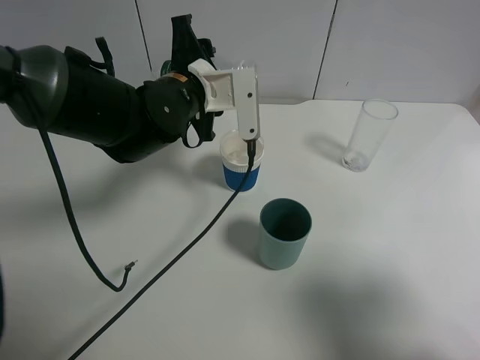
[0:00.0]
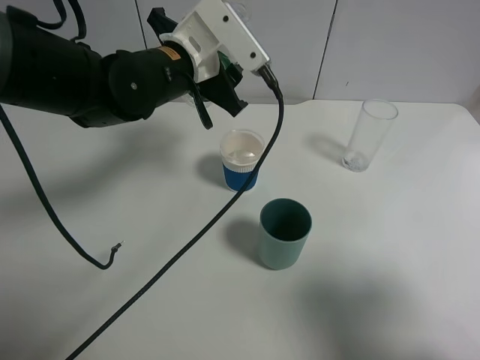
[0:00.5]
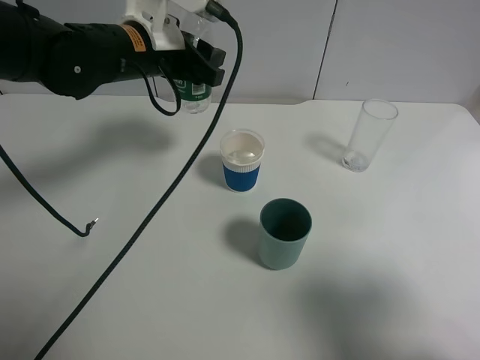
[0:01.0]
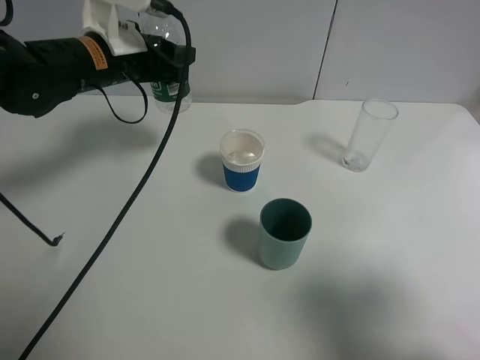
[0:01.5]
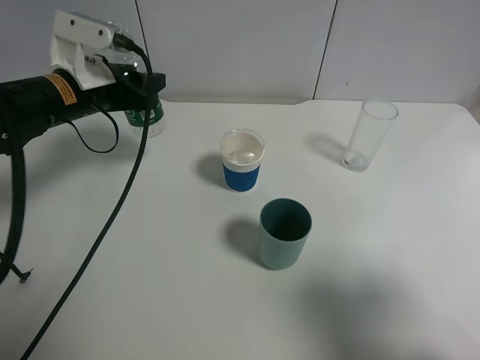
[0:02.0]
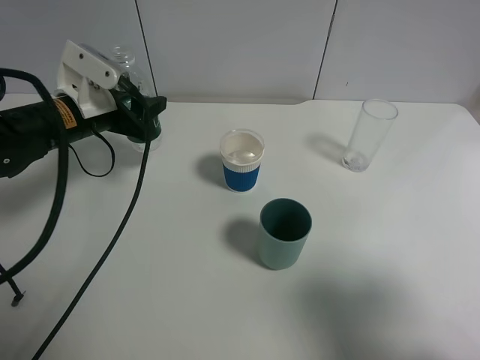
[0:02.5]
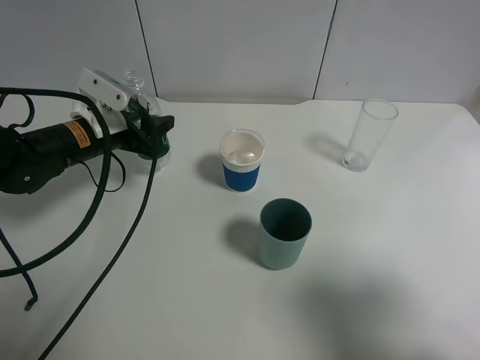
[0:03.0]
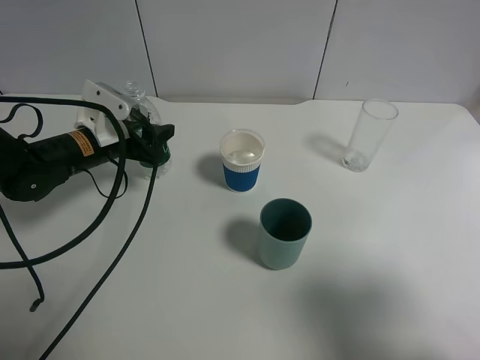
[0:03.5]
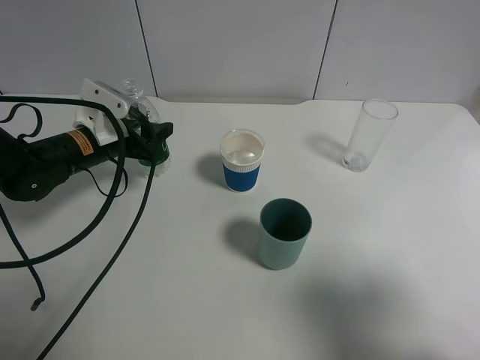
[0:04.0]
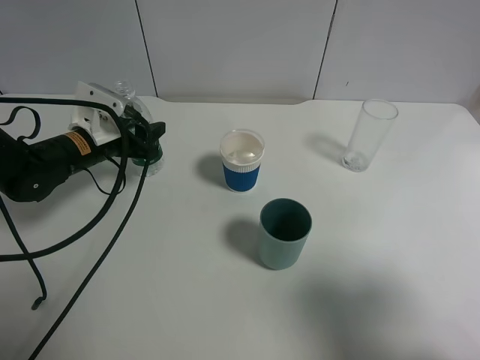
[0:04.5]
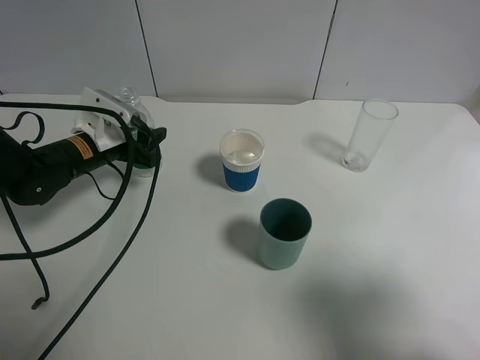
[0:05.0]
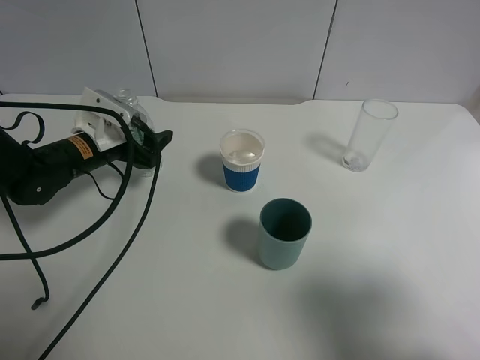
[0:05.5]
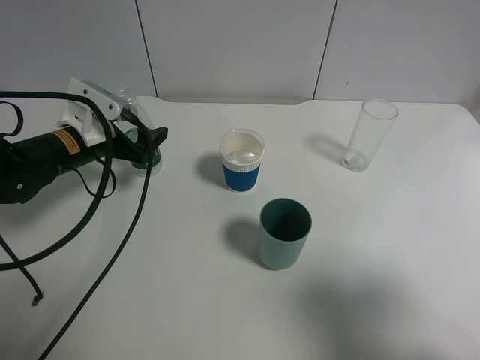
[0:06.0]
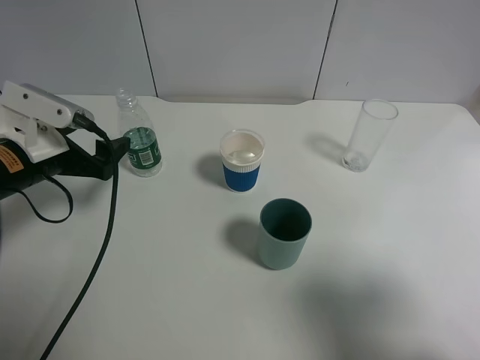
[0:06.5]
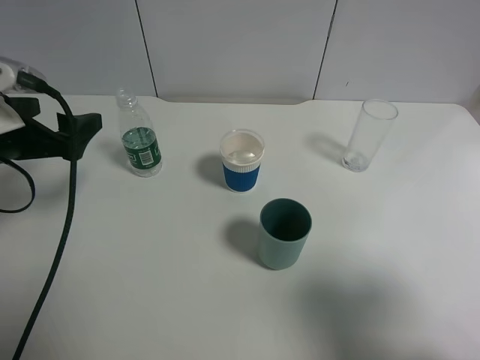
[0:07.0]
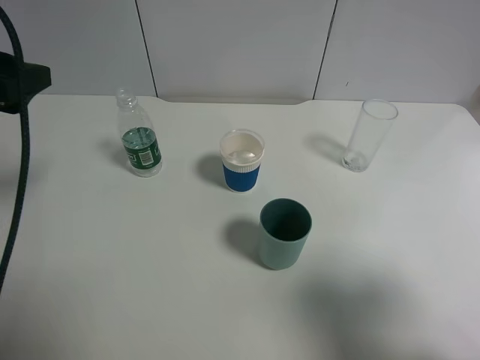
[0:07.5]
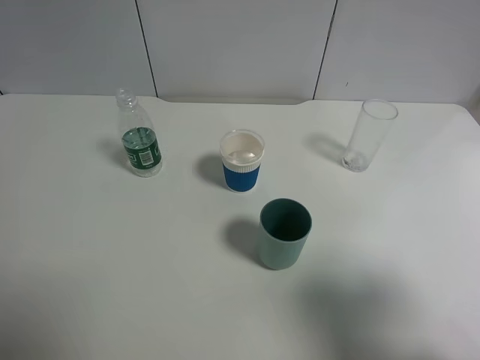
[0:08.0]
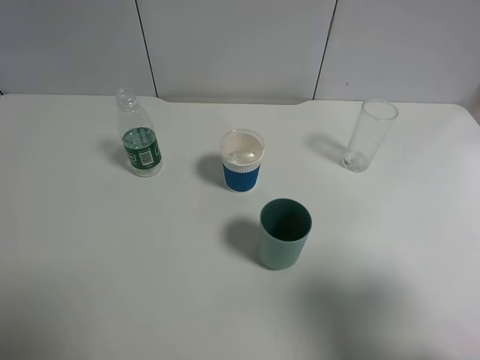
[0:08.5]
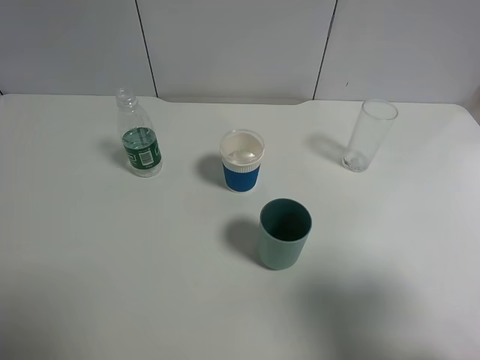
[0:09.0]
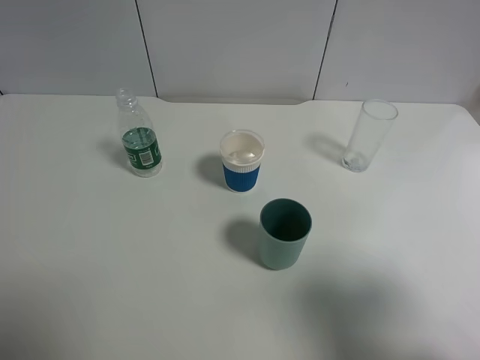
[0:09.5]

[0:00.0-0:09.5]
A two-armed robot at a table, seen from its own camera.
Task of the whole recording: use a gripper to hold the bottle of the drink and pour it into a random cup.
Step, 0:00.0 to 0:05.5: Place the mineral water bottle on the table with the left gripper.
0:00.0 to 0:02.0: The left gripper is displaced to the left by roughly 15 cm.
0:02.0 to 0:04.0: The left gripper heads downward, covering roughly 10 cm.
0:04.0 to 0:05.5: The left gripper opens.
0:05.5 to 0:07.5: The left gripper travels upward and backward by roughly 25 cm.
0:07.5 to 0:09.5: The left gripper moves backward, some 20 cm.

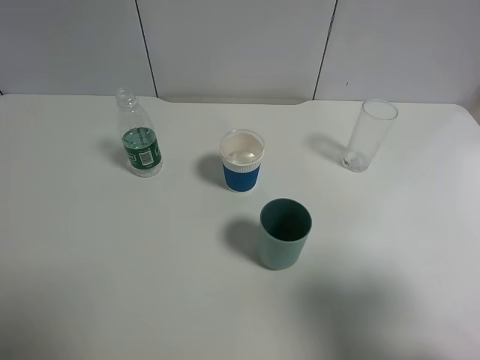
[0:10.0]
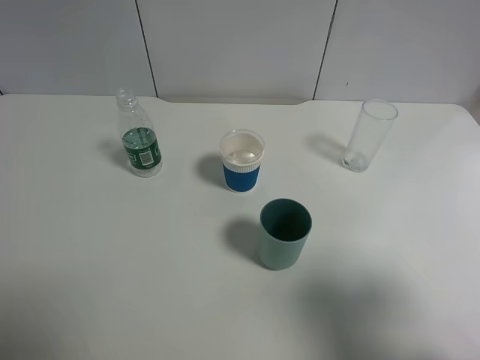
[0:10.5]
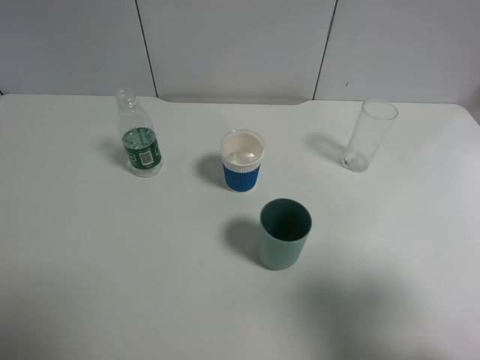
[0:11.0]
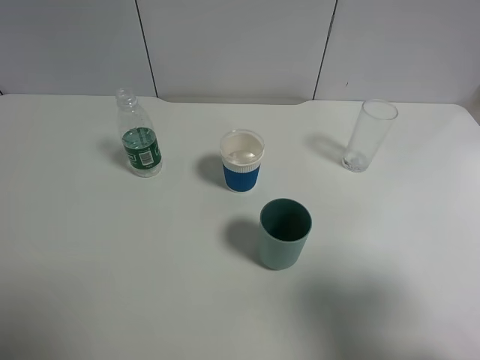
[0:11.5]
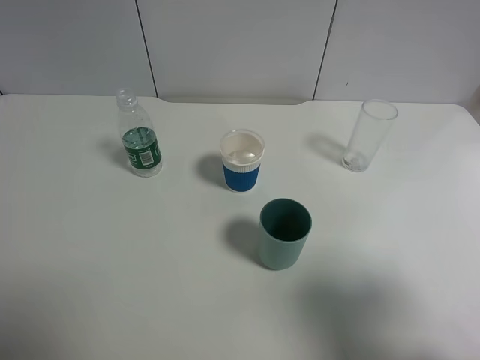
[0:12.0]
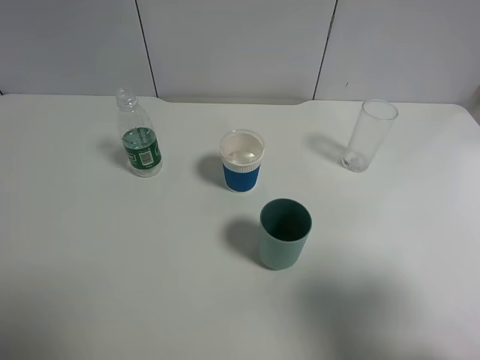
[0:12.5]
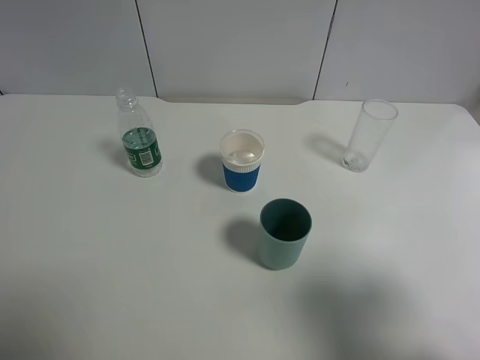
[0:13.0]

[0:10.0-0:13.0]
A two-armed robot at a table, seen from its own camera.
Task of the whole recording: use a gripper to hold the bottle of the drink and pour it into a random cup.
0:11.5 to 0:13.0: Neither gripper changes place.
